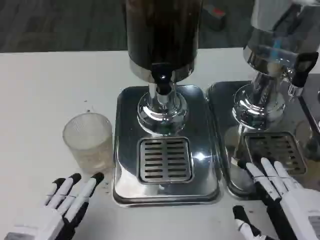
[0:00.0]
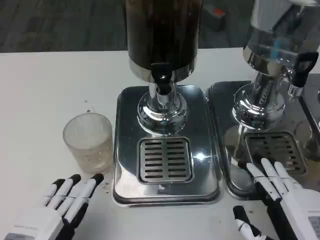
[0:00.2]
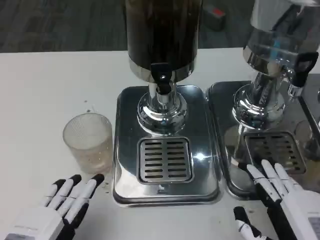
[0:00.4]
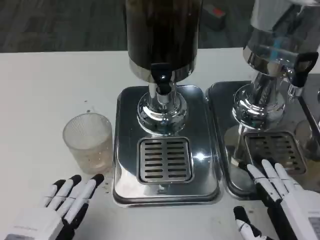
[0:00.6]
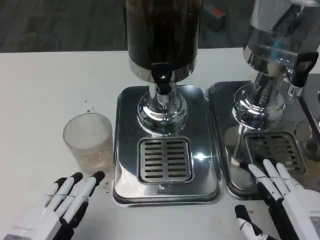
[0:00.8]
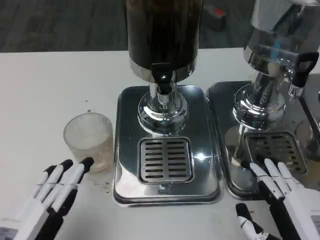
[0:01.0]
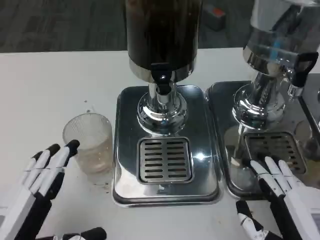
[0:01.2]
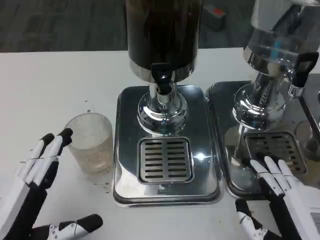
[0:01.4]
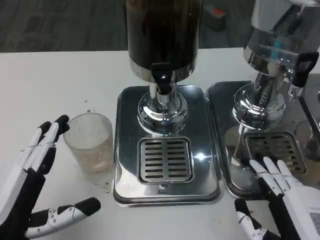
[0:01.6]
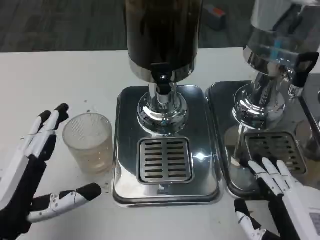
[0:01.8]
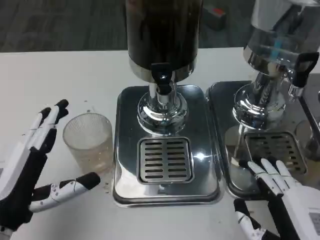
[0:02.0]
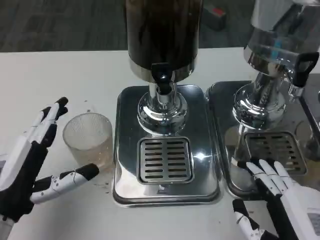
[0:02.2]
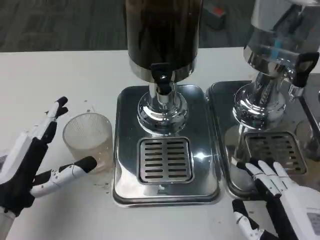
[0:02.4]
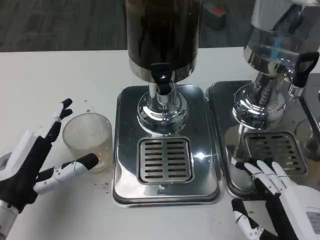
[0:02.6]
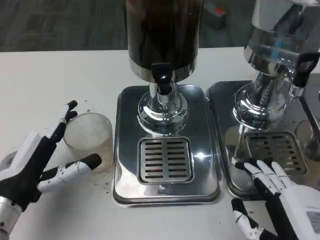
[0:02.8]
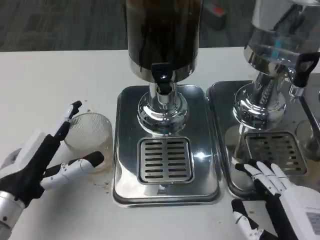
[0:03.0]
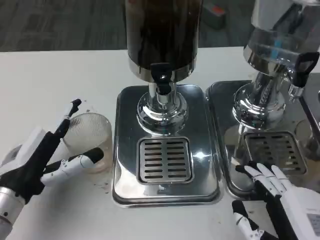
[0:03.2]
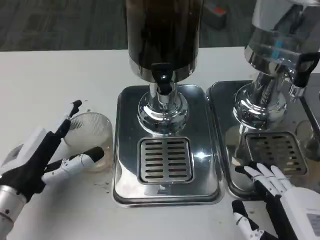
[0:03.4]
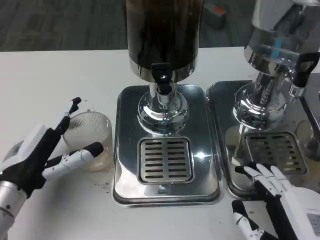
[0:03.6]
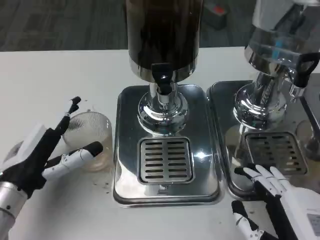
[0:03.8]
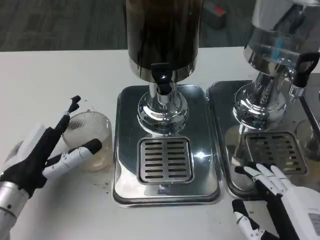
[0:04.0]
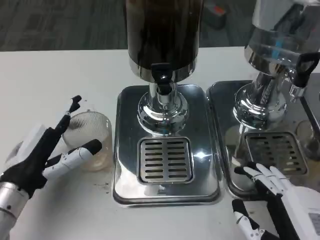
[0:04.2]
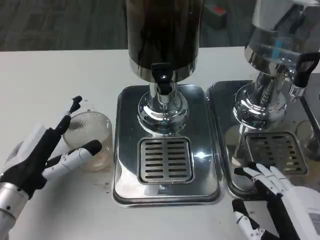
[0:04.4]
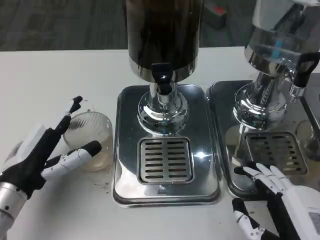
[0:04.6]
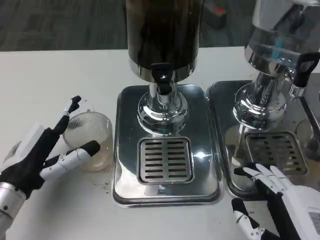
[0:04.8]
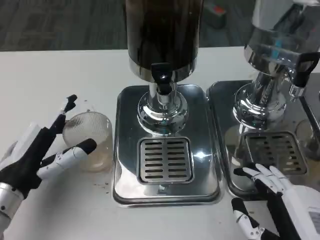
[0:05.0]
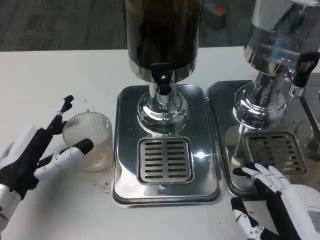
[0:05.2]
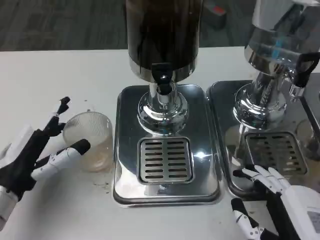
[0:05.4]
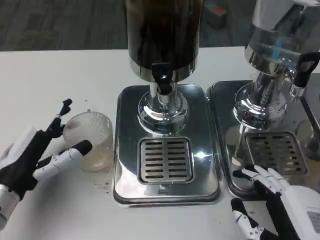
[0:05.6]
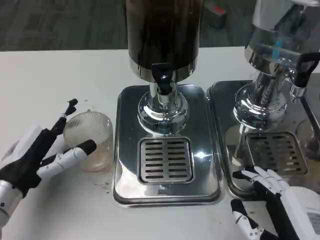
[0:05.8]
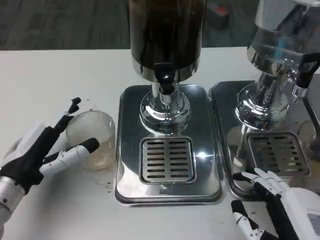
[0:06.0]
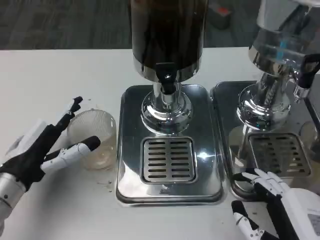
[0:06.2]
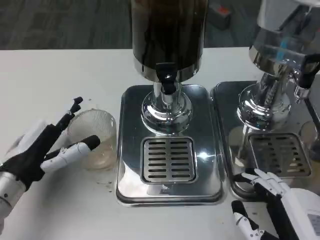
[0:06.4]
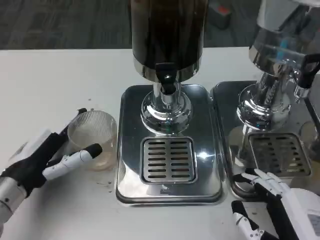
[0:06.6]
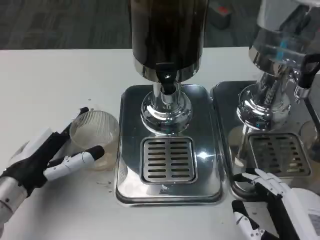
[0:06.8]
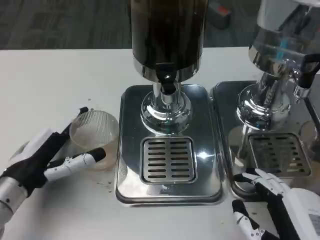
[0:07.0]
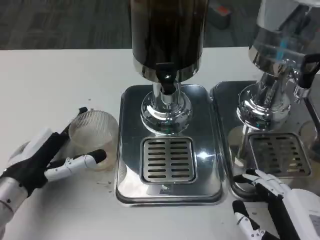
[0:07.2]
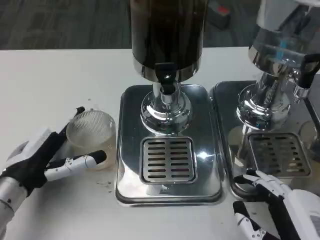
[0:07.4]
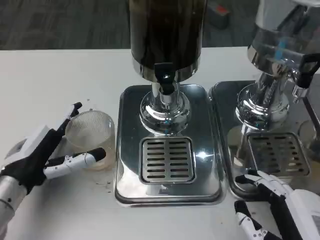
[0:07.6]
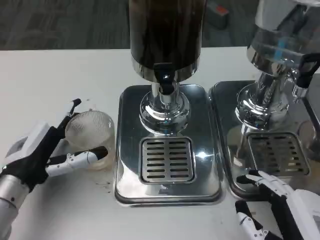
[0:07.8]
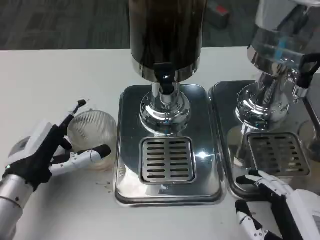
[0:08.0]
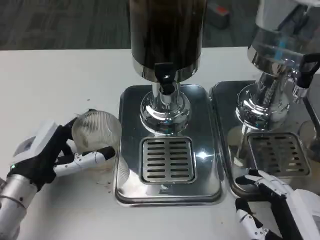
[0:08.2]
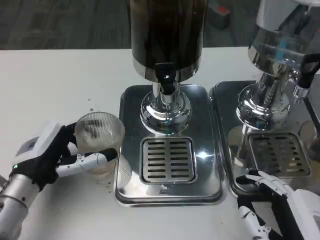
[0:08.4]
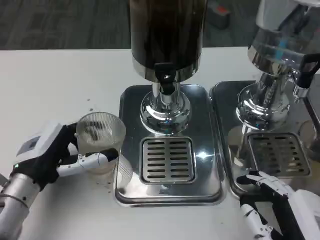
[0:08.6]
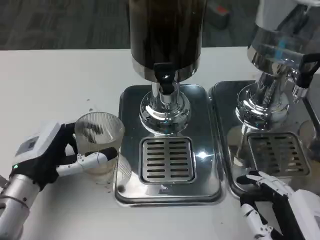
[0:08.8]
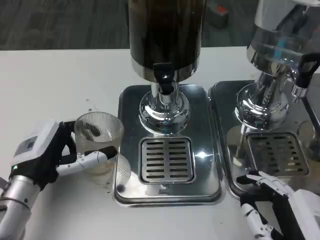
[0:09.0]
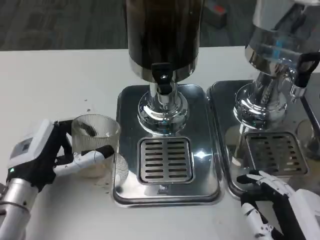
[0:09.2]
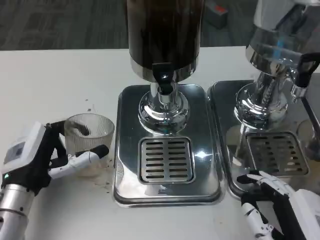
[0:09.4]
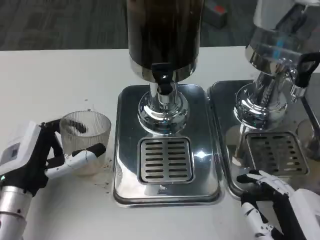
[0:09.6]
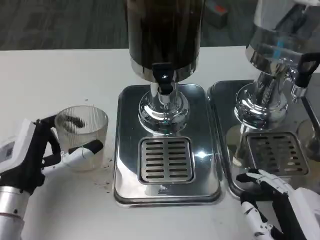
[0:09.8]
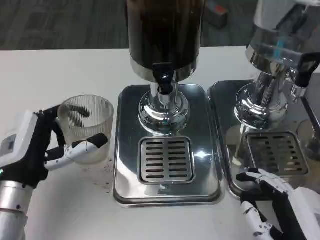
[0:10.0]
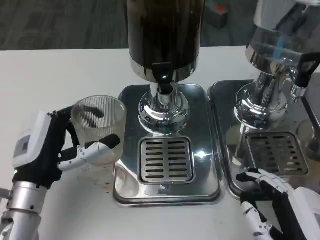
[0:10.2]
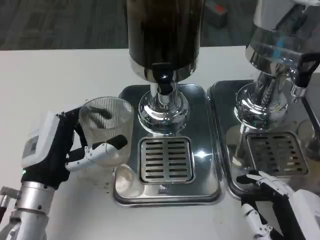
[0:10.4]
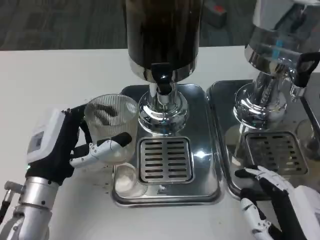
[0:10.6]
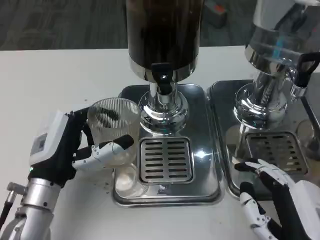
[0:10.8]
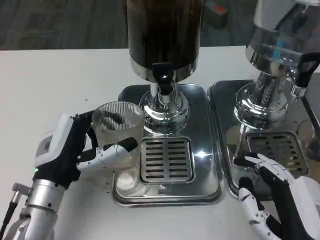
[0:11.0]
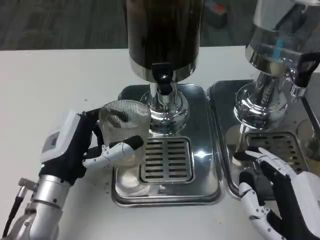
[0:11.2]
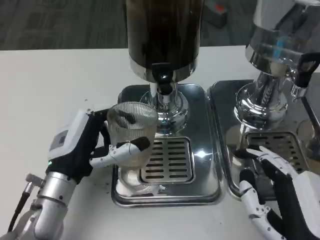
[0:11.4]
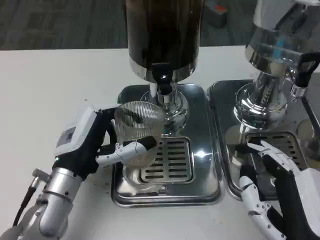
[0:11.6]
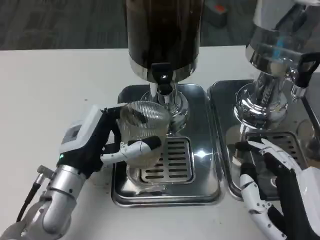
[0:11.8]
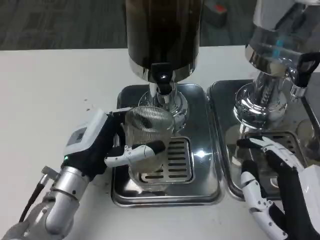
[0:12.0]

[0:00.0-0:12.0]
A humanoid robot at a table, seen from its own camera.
Task of the whole recording: Grasp the cup under the faucet to collect the drink, then remove the cup.
0:01.6 to 0:03.0: The left hand moves forward, roughly 10 cm.
0:03.0 to 0:04.4: The hands stay close to where they were, moving slightly.
0:04.4 to 0:06.0: Both hands stay about where they are.
0:06.0 to 0:09.0: The hands move only a little.
0:09.0 to 0:10.4: There are only small adjustments of the hands.

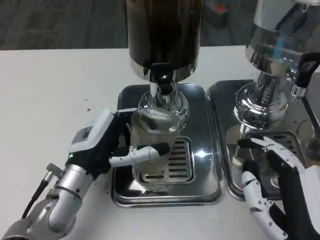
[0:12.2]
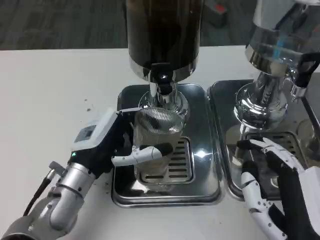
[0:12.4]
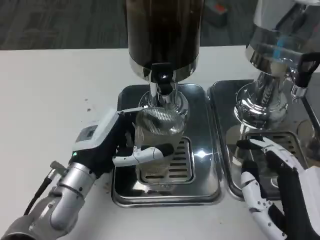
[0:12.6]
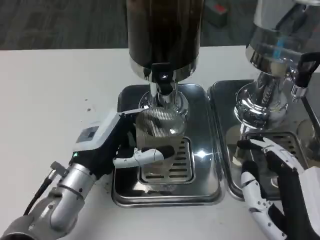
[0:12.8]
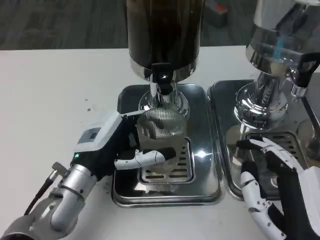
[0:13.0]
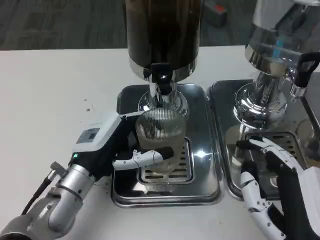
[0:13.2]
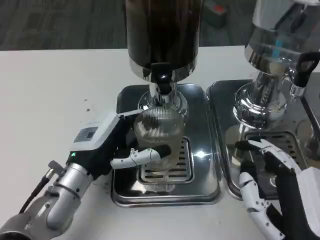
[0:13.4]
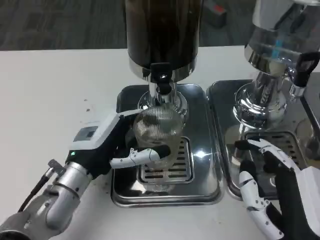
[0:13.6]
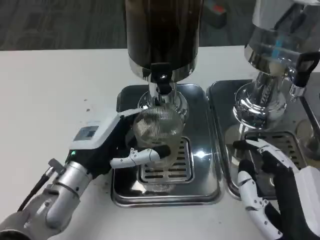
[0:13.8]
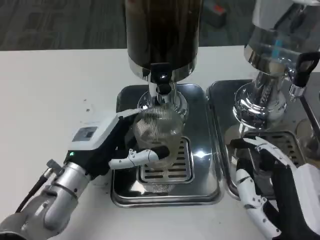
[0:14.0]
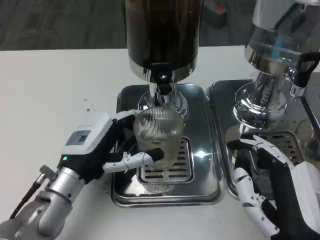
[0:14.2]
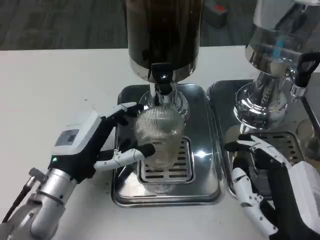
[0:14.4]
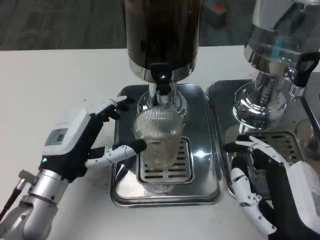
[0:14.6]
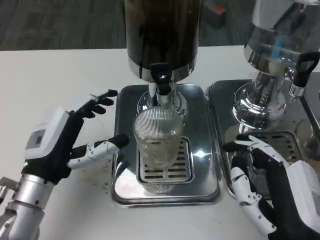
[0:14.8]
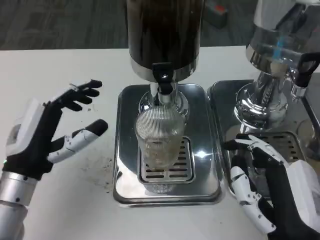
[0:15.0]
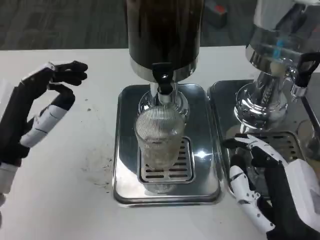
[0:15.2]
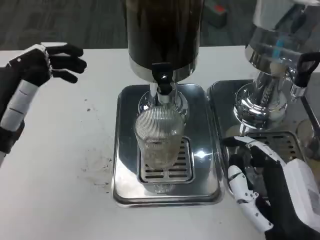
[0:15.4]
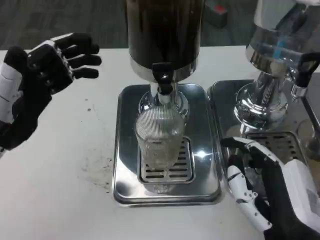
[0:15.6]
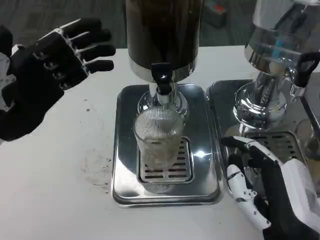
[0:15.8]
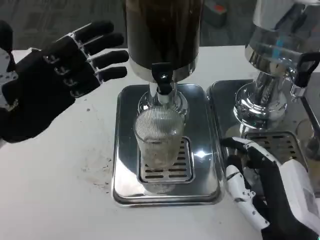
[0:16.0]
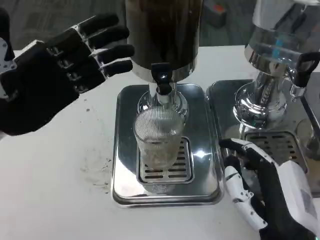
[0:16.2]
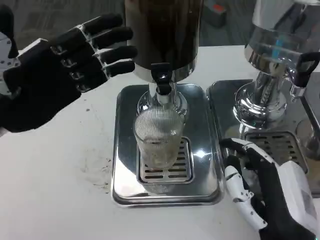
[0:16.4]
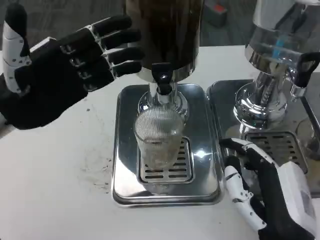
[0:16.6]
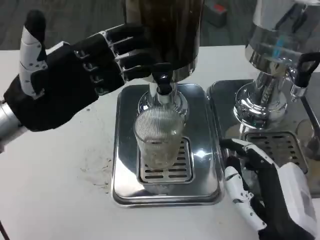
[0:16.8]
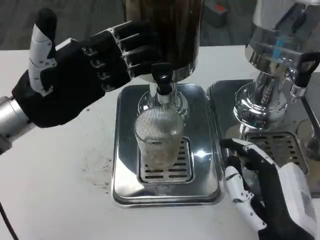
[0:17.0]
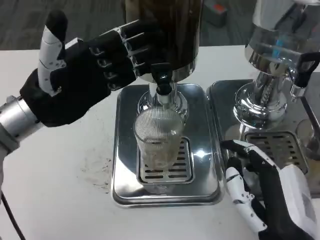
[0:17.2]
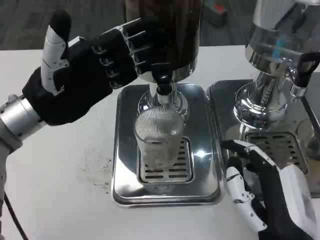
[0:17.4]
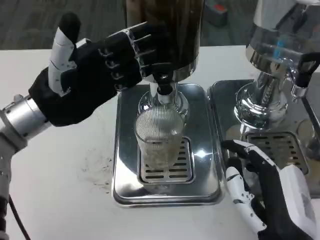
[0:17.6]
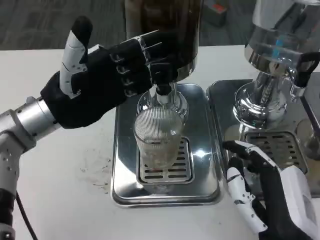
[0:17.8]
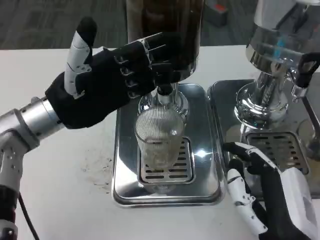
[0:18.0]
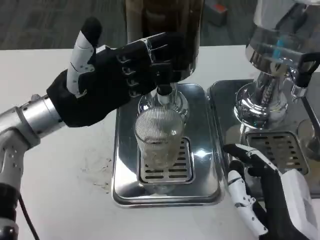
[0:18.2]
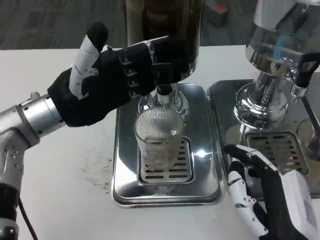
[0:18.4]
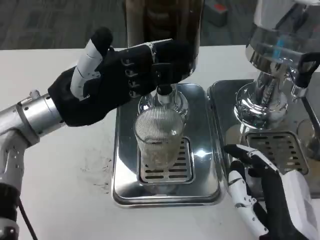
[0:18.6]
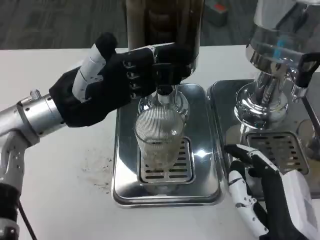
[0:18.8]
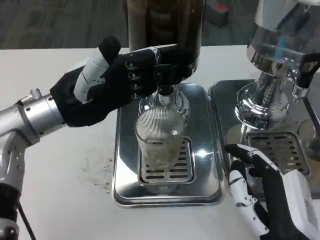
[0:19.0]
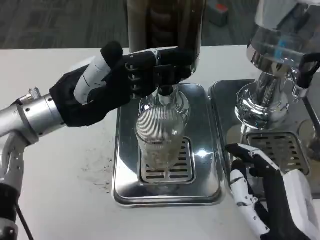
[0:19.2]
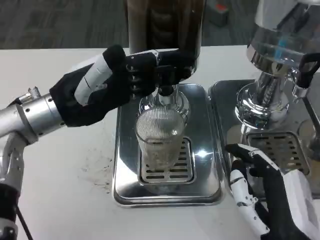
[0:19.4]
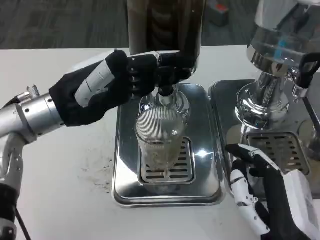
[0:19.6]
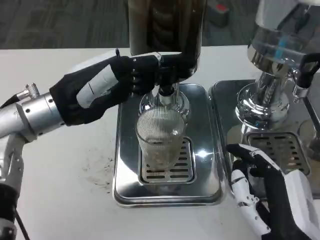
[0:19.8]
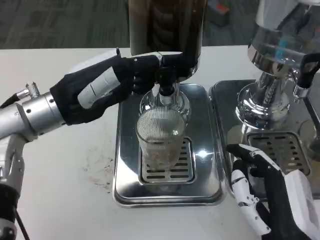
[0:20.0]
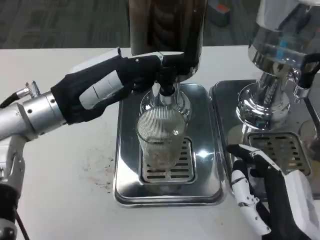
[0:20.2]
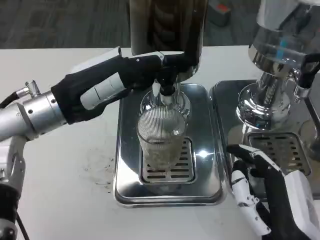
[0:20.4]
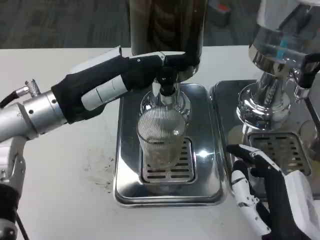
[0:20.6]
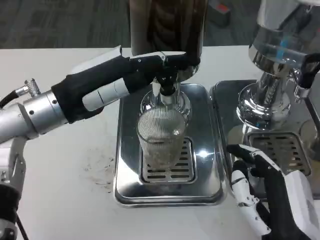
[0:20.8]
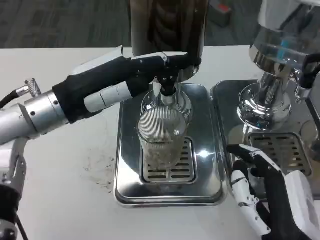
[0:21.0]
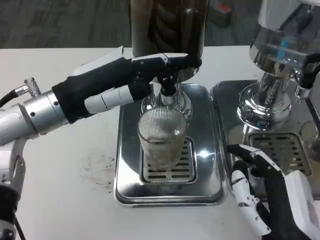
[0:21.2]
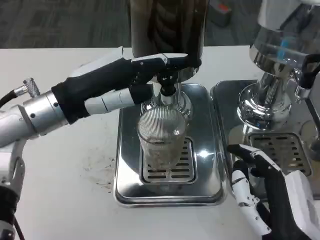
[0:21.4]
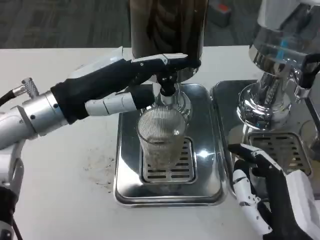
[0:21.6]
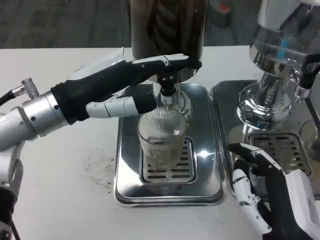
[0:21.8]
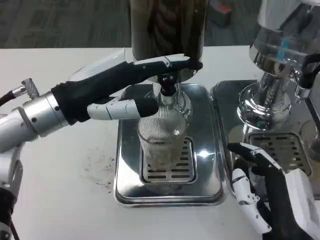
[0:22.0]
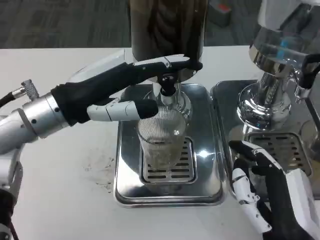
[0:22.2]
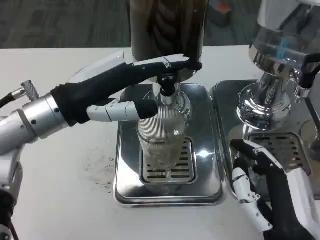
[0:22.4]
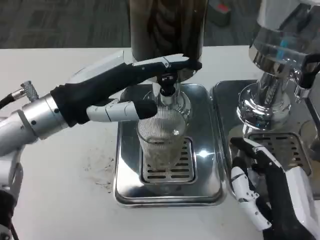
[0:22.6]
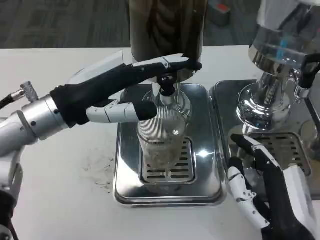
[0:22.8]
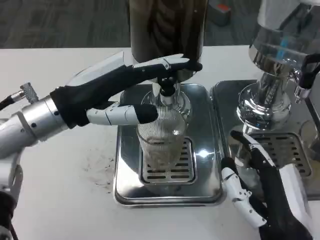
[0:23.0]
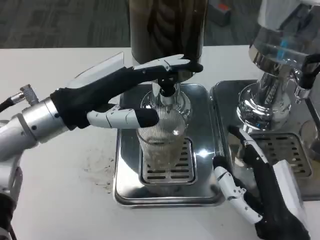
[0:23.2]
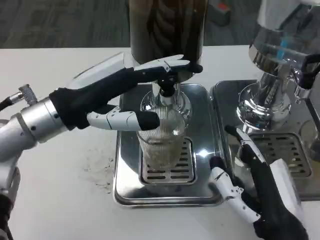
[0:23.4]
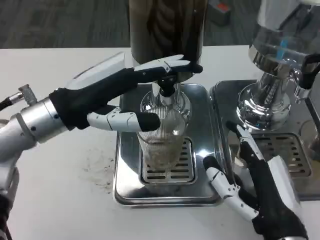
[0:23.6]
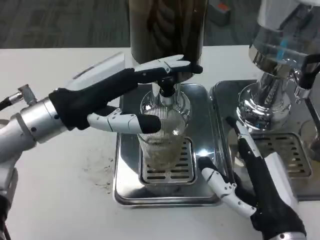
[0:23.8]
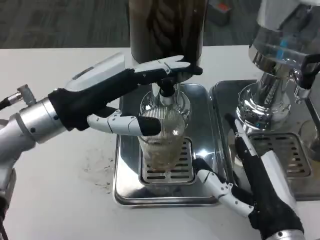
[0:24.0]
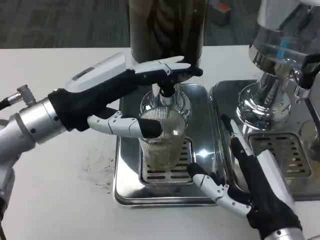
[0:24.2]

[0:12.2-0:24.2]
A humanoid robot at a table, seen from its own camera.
Task of the whole recording: Grasp the cup under the faucet to collect the drink, then remove the cup.
0:12.2 to 0:13.8: The hands move only a little.
0:13.8 to 0:15.2: The left hand goes some 10 cm to the left and upward.
0:15.2 to 0:16.6: The left hand is displaced upward and forward by approximately 10 cm.
0:16.6 to 0:18.2: The left hand is displaced to the right by some 5 cm.
0:19.8 to 0:21.2: There are only small adjustments of the hands.
0:21.2 to 0:22.6: The hands make only small movements.
